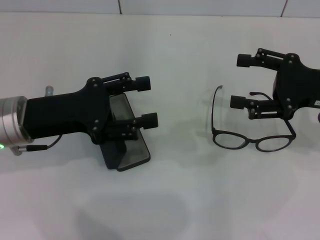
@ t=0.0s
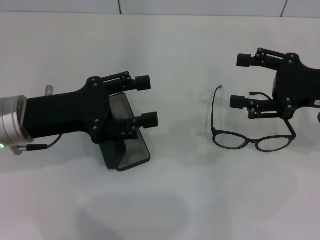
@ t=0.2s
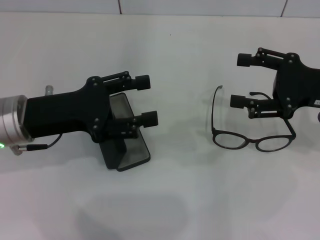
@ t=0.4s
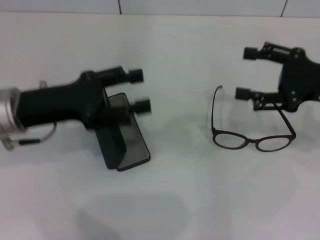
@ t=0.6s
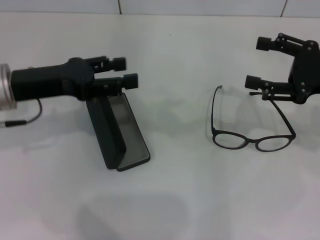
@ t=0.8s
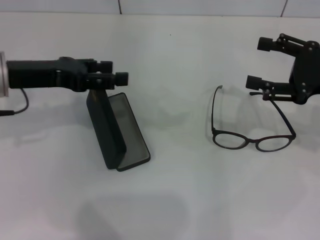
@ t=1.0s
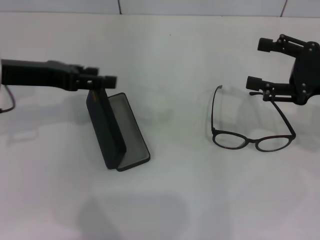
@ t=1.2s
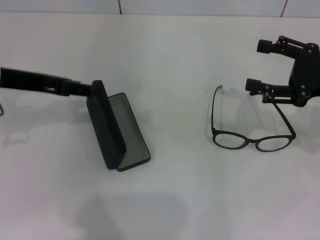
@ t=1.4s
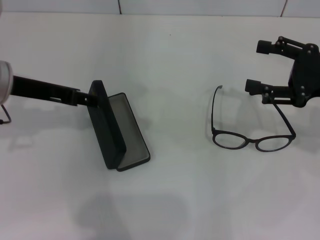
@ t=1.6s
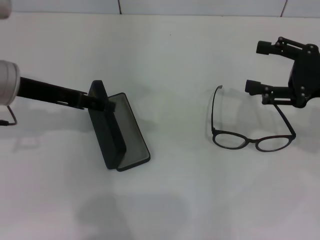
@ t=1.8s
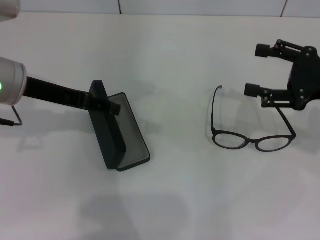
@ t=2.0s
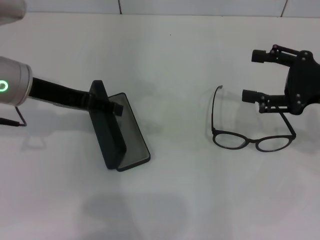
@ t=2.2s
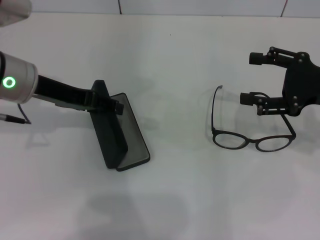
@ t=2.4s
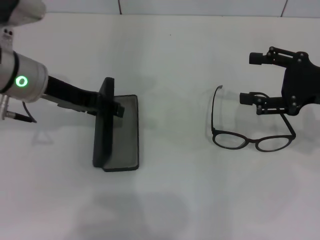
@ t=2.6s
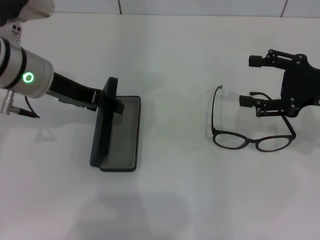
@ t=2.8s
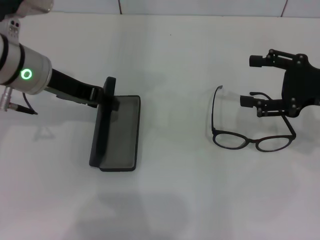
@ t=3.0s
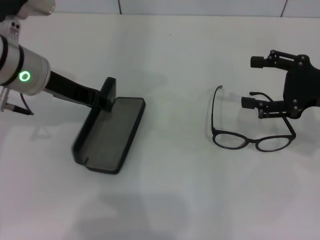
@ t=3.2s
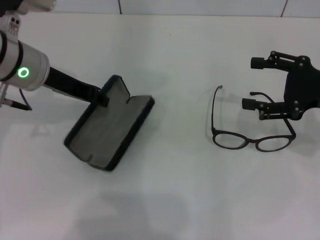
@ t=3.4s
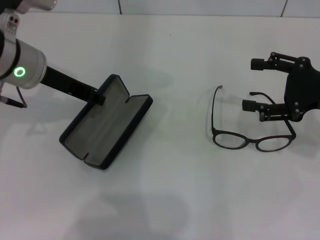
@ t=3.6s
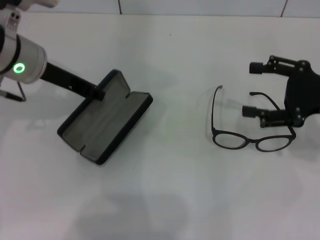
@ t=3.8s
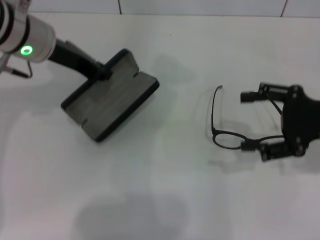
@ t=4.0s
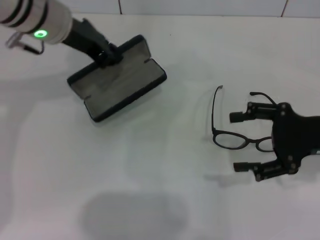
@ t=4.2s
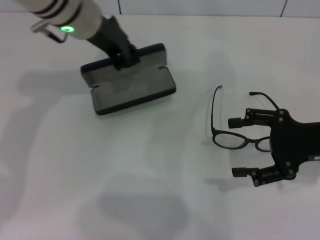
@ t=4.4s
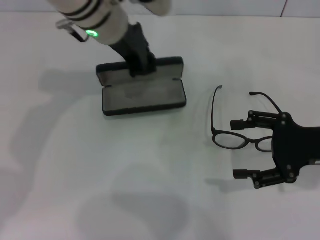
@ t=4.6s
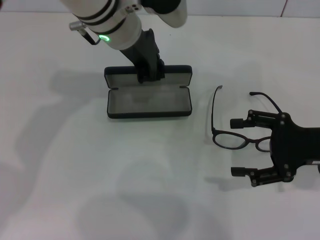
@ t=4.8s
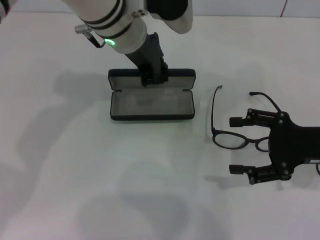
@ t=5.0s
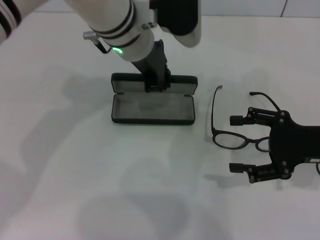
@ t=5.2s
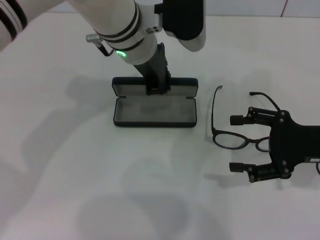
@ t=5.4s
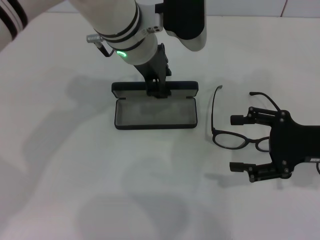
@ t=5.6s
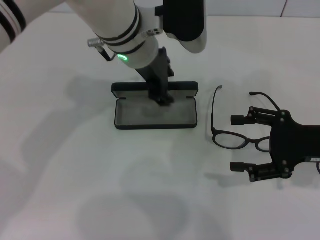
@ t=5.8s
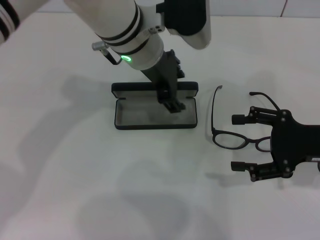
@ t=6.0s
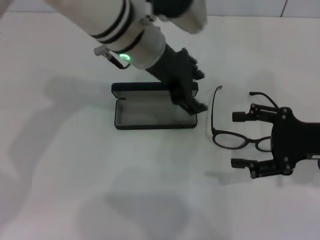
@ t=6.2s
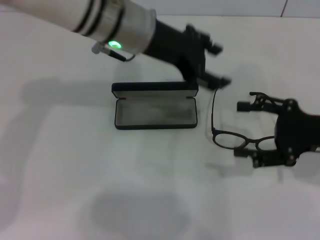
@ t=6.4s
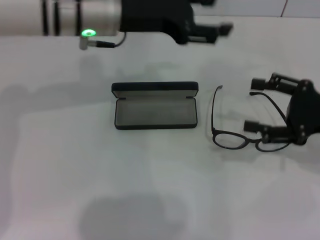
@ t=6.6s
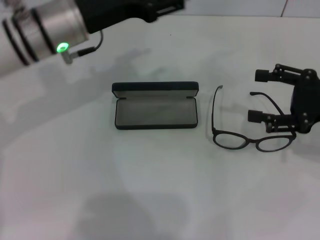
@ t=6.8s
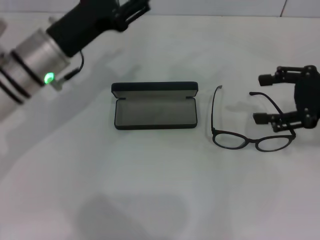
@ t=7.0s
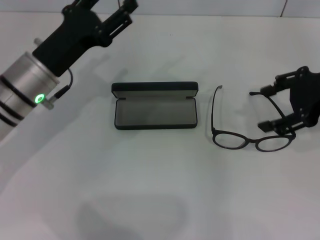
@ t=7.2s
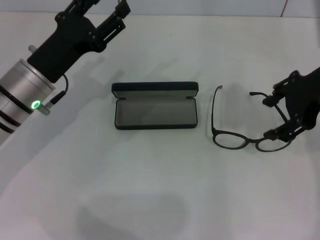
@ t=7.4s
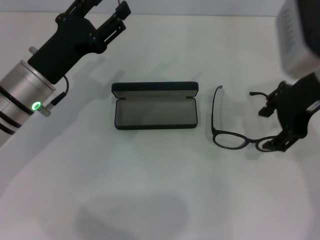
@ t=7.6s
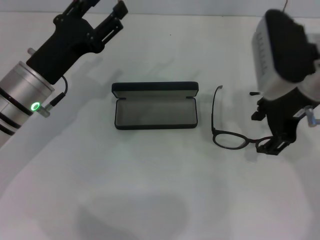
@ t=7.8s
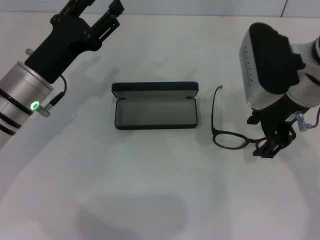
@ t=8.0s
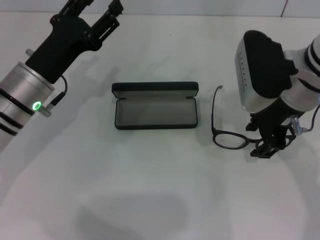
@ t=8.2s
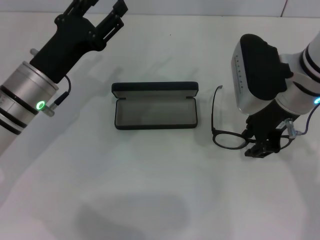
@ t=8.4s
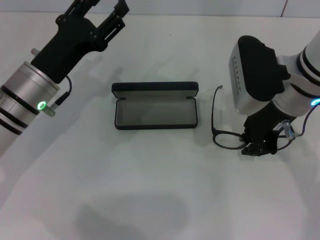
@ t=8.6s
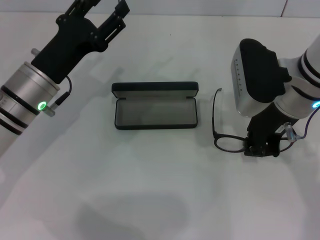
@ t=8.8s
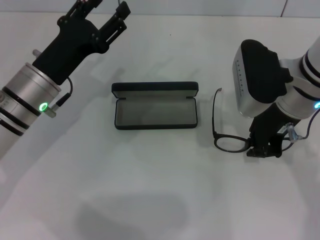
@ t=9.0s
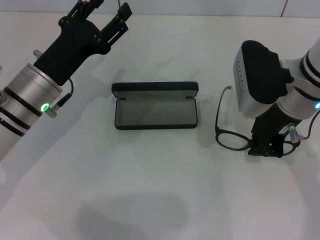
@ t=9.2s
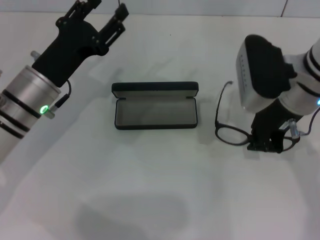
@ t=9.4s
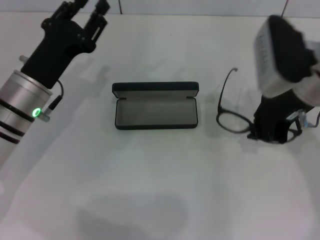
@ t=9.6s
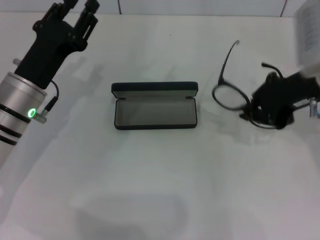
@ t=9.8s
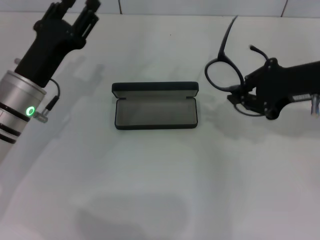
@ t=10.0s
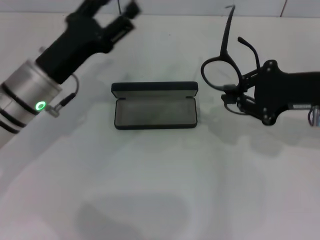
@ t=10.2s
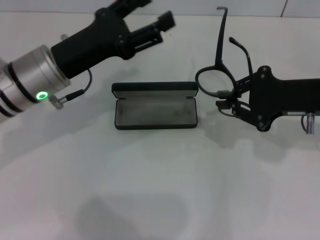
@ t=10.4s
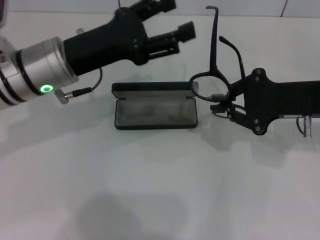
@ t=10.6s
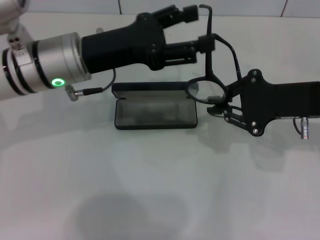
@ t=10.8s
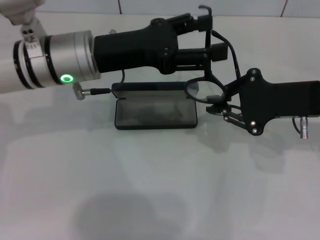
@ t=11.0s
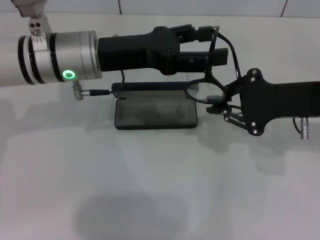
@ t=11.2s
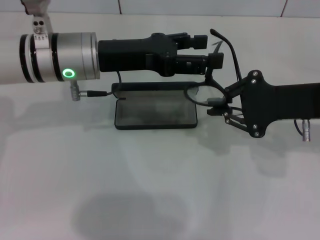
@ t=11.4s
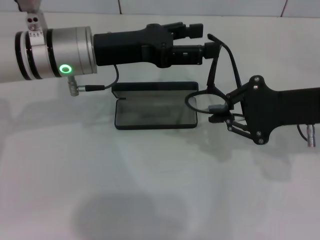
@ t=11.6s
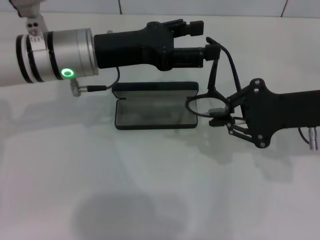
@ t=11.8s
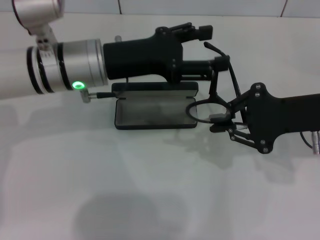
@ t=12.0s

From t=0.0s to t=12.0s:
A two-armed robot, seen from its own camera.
Step, from t=0.0s to t=2.6s: Grab the glasses case with your left hand.
Step, from t=2.8s to t=6.0s: Place the glasses case in the center of the table with your left hand.
Step, from t=6.2s to t=9.2s: Grab the eyeglass frame with your right hand.
From t=0.0s to t=1.6s: The left gripper moves forward, approximately 5 cm.
From t=1.6s to t=3.0s: The left gripper ends up some 5 cm from where it was.
From t=3.0s to t=4.4s: The left gripper is displaced to the right and forward by some 10 cm, and closes up.
From t=4.4s to t=6.0s: The left gripper shifts some 10 cm to the right, and opens up.
From t=6.0s to t=7.6s: The left gripper heads to the left, downward and backward, covering approximately 20 cm. Meanwhile the right gripper heads upward, to the left and forward, covering some 15 cm.
From t=7.6s to t=9.0s: The right gripper goes about 5 cm downward, and closes up.
From t=9.0s to t=10.4s: The right gripper moves to the right, roughly 10 cm.
From t=10.4s to t=12.0s: The left gripper ends up roughly 5 cm from where it was.

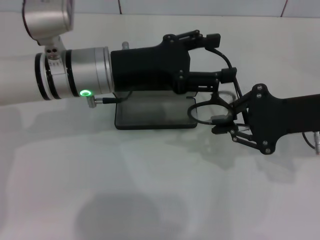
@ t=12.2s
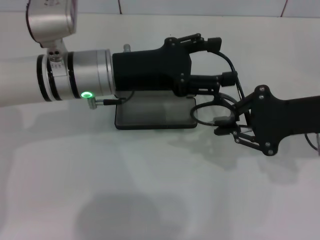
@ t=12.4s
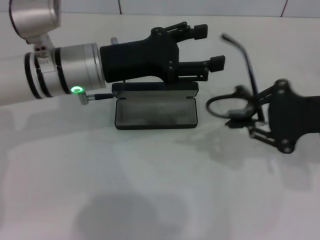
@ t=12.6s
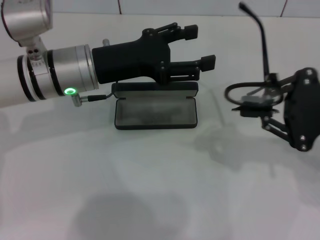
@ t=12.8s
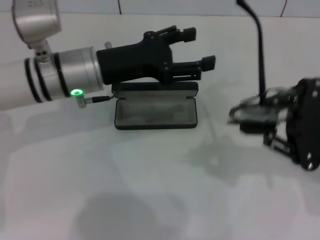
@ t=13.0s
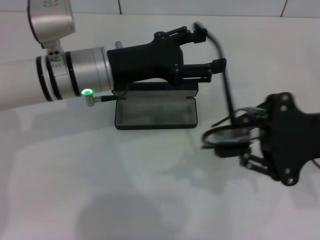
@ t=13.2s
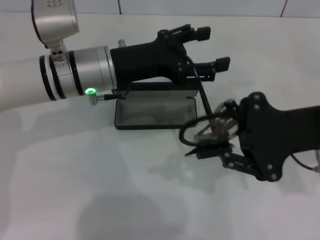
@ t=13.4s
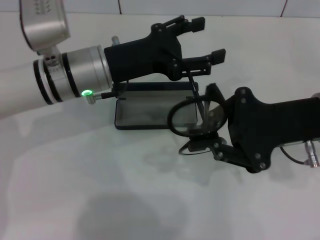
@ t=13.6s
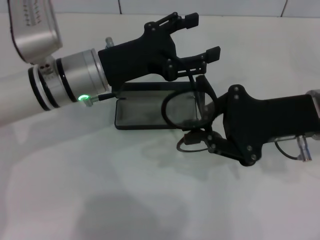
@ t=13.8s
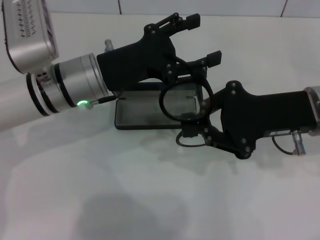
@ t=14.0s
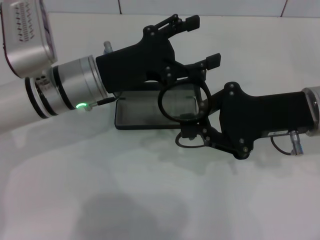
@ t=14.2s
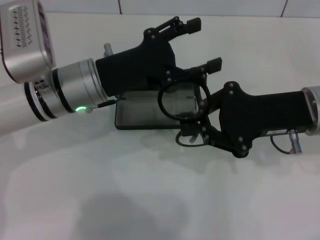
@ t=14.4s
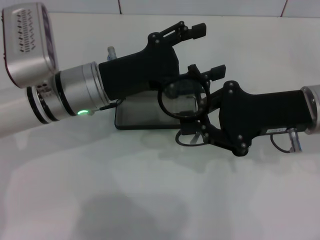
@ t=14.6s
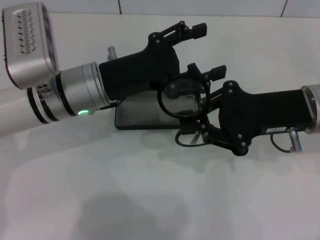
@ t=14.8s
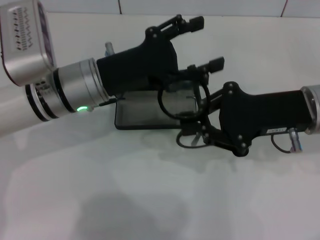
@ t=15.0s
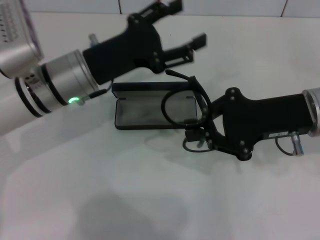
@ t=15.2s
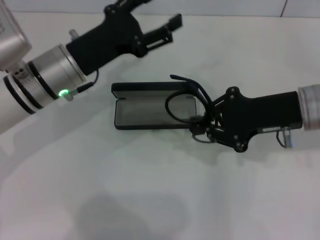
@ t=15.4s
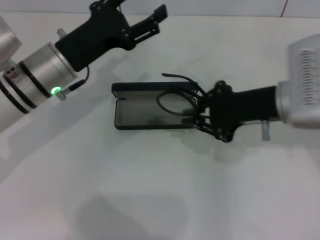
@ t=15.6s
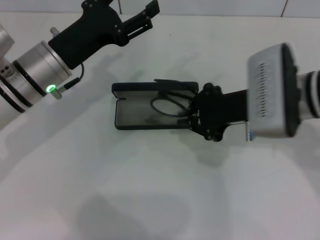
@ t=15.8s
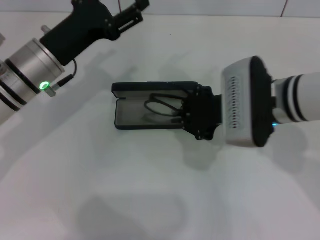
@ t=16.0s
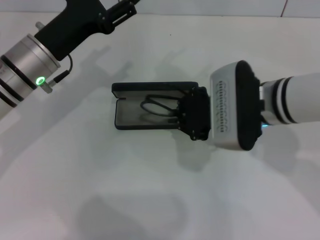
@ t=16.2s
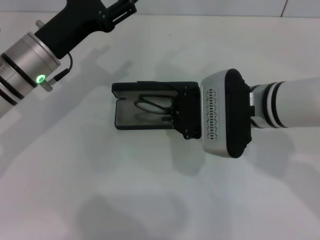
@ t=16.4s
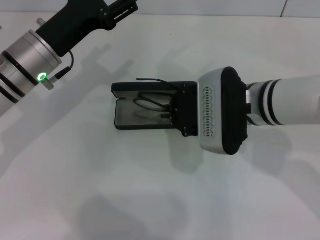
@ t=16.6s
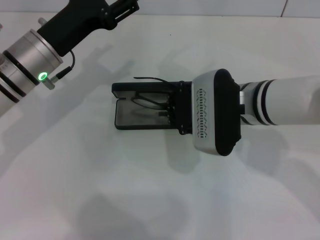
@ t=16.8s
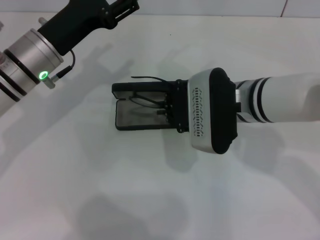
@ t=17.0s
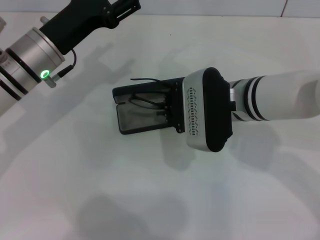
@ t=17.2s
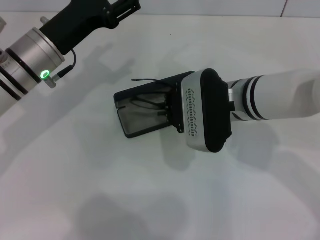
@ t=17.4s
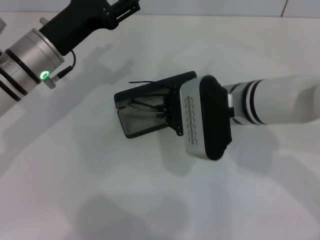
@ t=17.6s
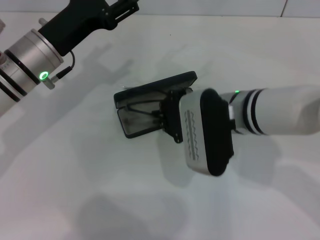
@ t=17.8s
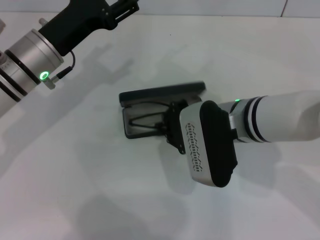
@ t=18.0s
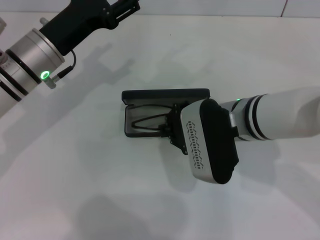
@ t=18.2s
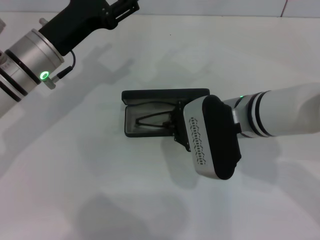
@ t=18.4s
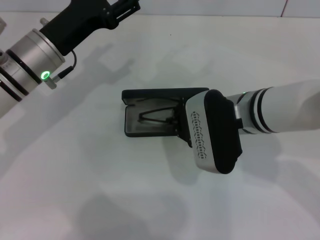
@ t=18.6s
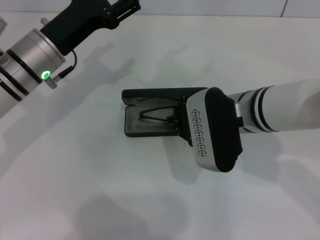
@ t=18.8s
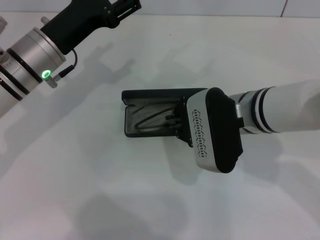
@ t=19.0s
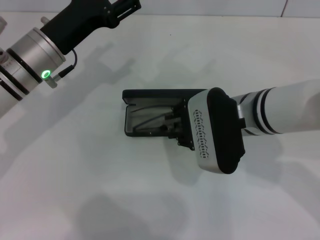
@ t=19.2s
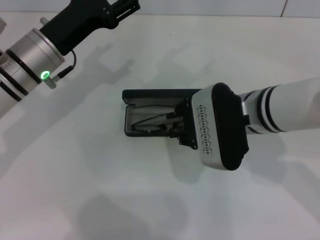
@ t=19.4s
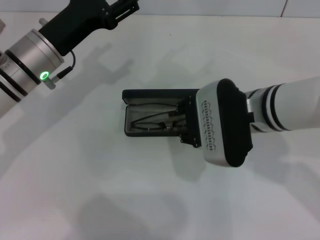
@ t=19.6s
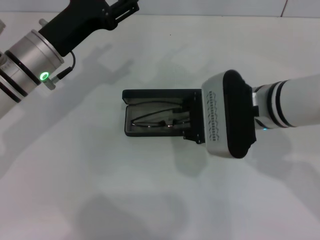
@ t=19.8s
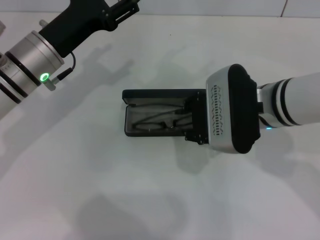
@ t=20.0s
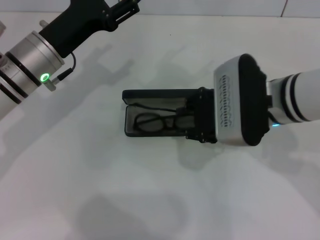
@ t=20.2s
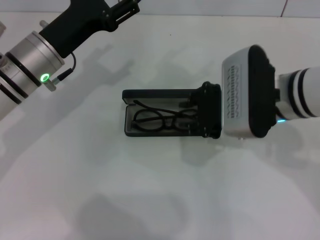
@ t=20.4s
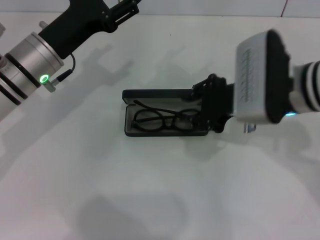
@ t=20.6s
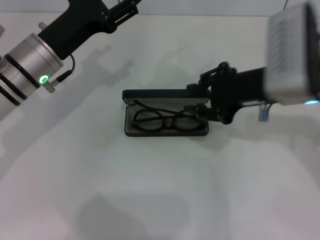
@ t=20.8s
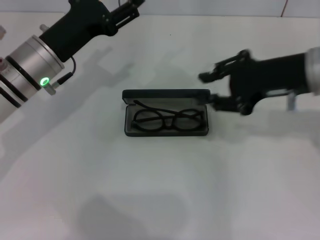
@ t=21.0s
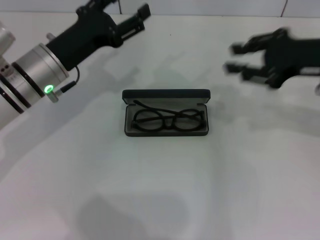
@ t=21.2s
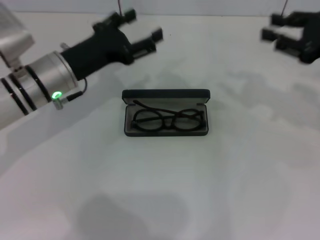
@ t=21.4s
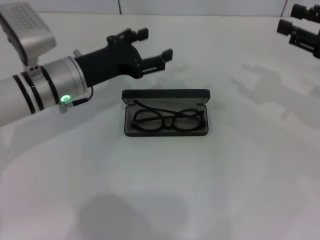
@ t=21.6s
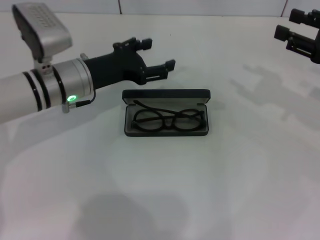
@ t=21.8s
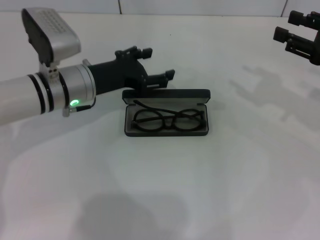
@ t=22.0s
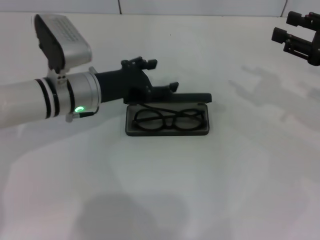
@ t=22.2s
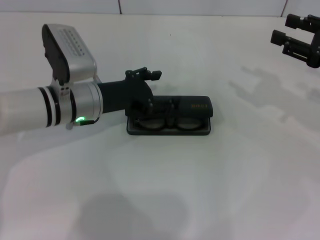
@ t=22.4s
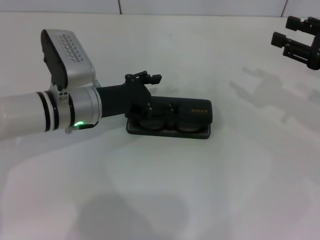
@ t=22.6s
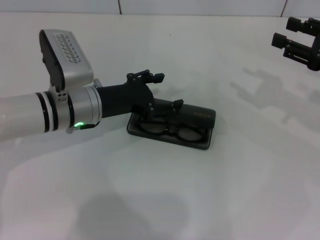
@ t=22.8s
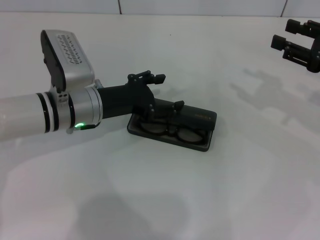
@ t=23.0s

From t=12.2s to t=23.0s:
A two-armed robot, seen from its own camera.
Step, from t=12.2s to t=14.6s: Lift the glasses with your right hand.
Step, from t=14.8s to t=19.4s: Put the glasses into the case with your right hand.
From t=13.8s to t=15.2s: The grippers stay close to where they were, moving slightly.
From t=15.2s to t=16.8s: The right gripper moves to the left, about 10 cm.
From t=16.8s to t=20.0s: The grippers make only small movements.
From t=20.0s to t=21.4s: The right gripper travels to the right by about 20 cm.
